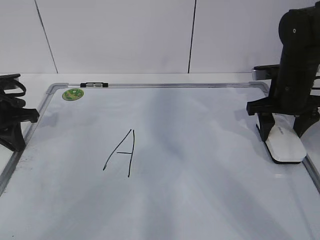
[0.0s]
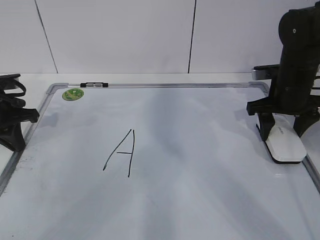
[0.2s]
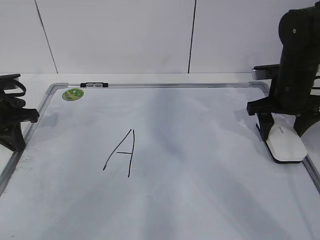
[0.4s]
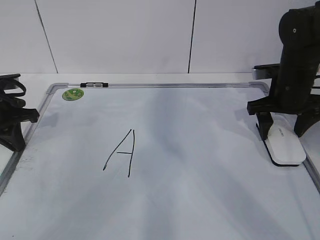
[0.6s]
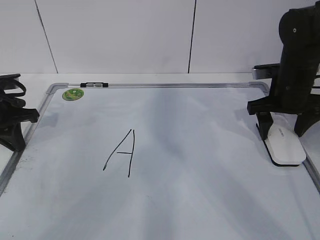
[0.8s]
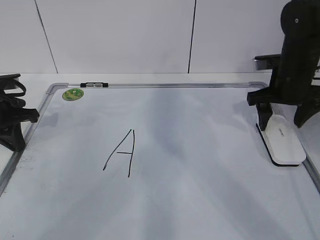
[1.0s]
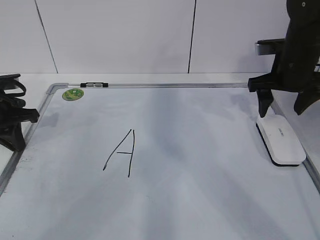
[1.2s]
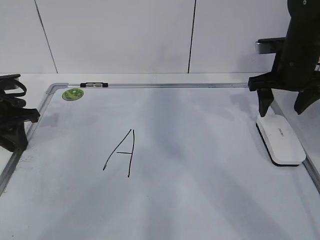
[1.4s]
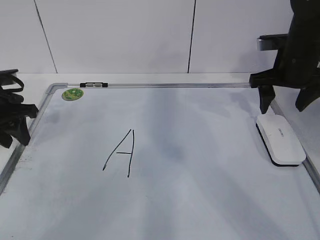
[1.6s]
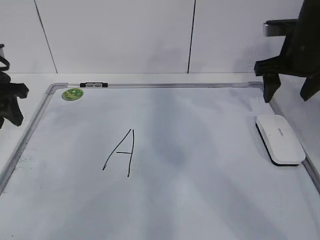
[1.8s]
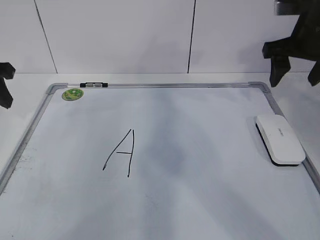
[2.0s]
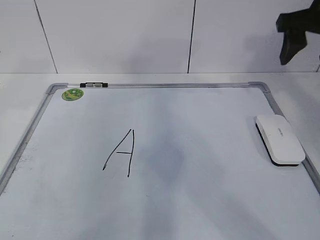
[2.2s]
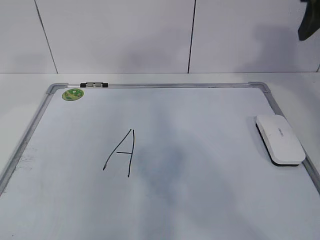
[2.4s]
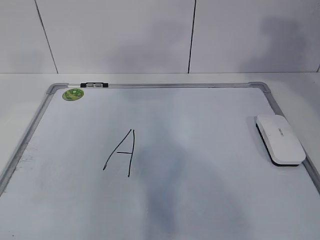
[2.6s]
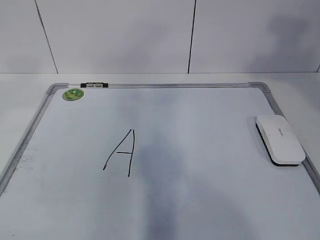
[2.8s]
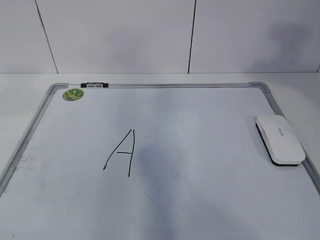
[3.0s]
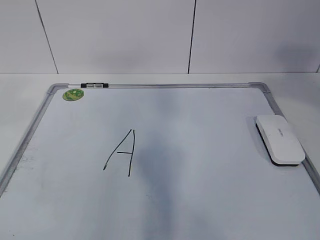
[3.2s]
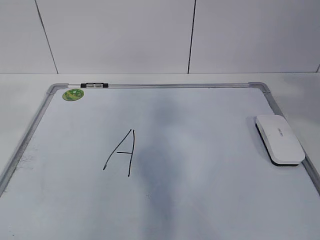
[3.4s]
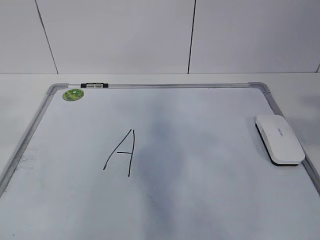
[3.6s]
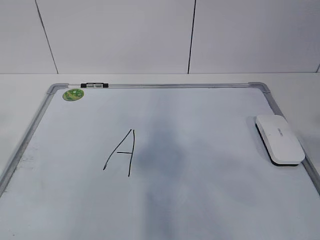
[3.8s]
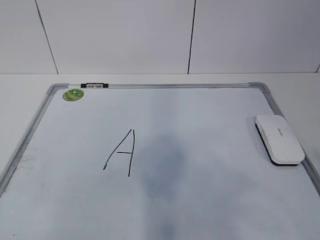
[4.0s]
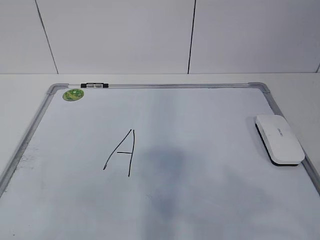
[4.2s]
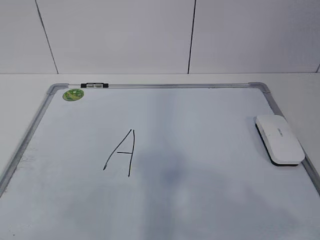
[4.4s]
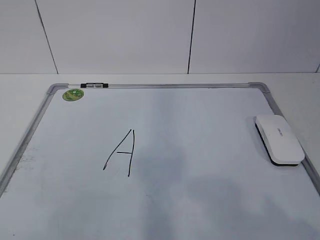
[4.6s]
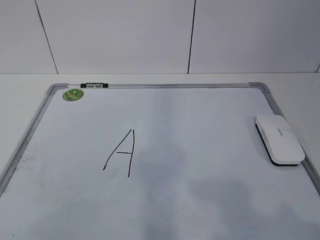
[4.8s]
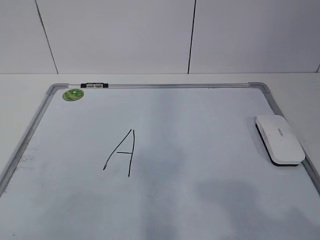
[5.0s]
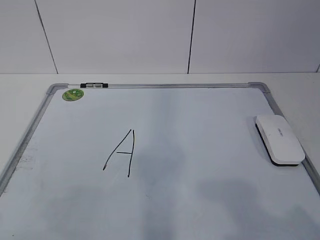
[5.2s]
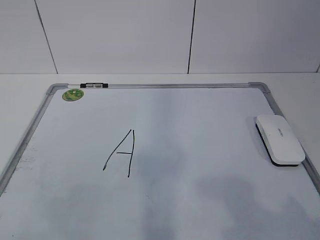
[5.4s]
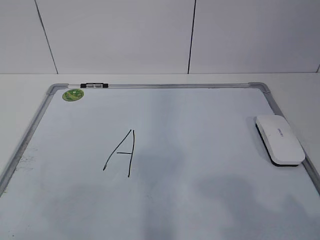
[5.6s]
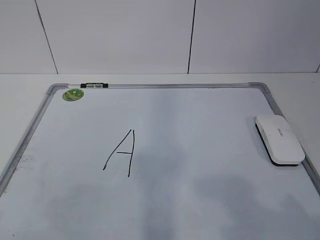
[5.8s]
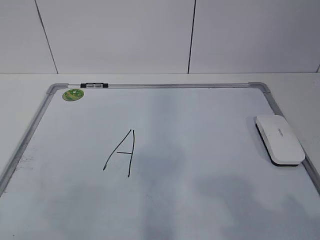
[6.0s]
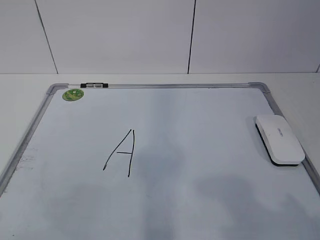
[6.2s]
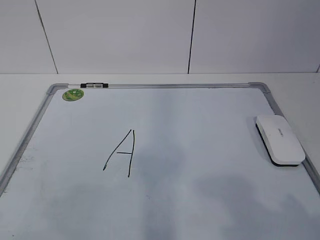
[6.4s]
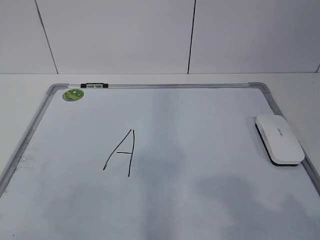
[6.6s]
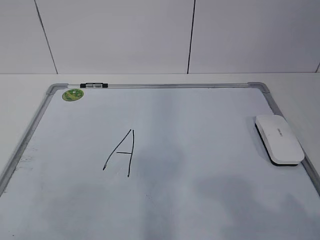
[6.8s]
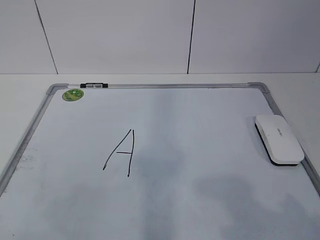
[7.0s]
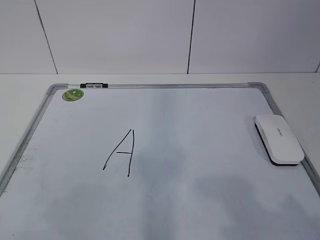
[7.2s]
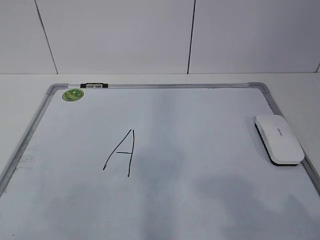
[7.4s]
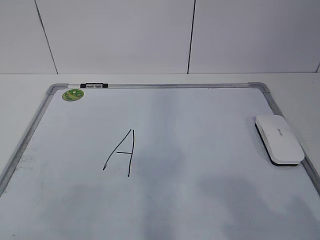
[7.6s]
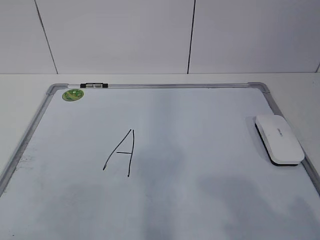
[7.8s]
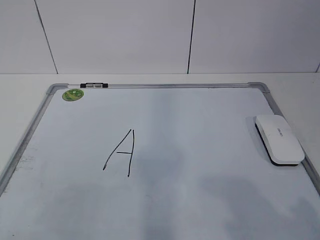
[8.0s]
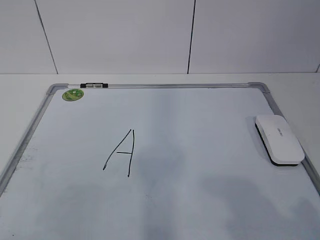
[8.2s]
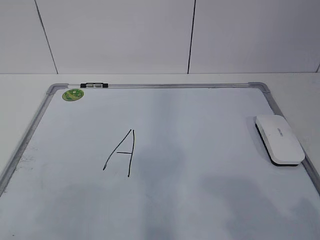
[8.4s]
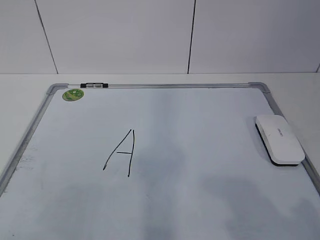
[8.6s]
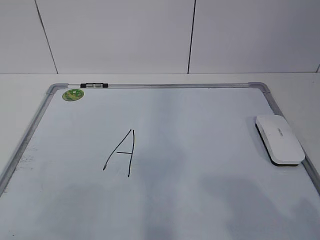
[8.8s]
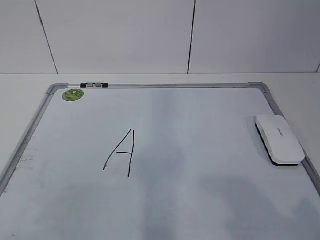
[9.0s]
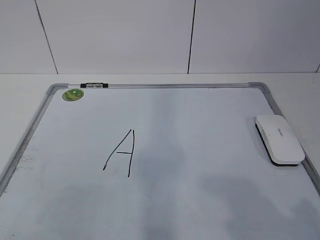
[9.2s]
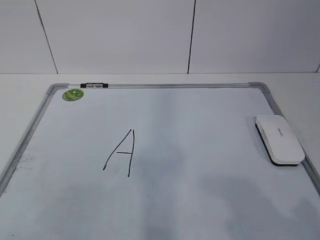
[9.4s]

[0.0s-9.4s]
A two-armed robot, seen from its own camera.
Task of the whole recording: pick up the eraser on the blackboard and erase the letter "a".
0.0s to 1.6s: The right gripper opens; the left gripper opens.
1.6s to 3.2s: The right gripper goes about 40 cm backward and upward, and closes its fingers; the left gripper heads upward and backward, covering roughly 40 cm.
3.2s to 4.8s: The right gripper heads downward and backward, covering about 25 cm.
7.8s to 9.4s: Neither gripper changes place.

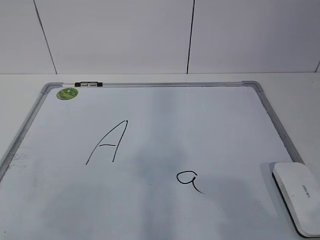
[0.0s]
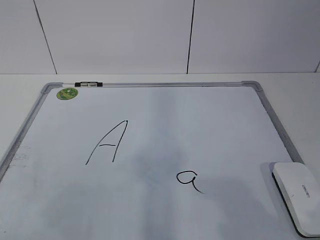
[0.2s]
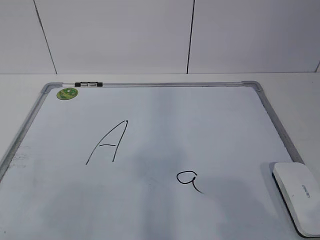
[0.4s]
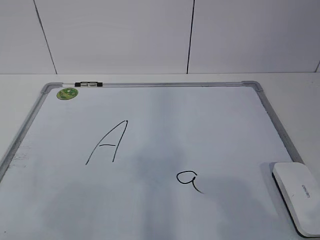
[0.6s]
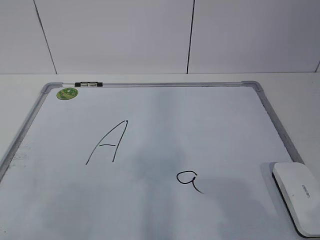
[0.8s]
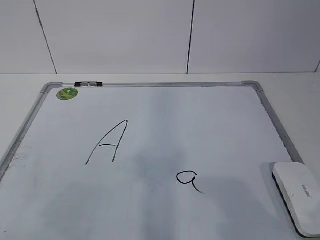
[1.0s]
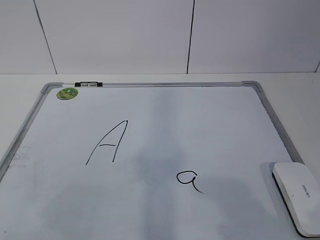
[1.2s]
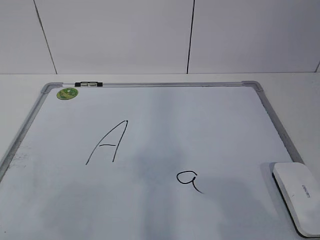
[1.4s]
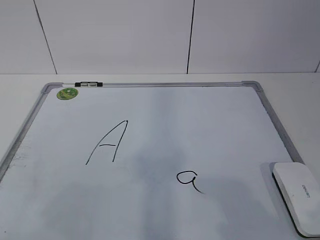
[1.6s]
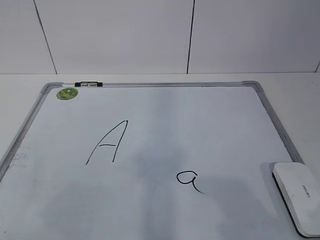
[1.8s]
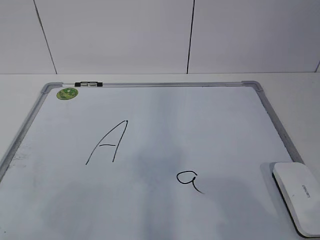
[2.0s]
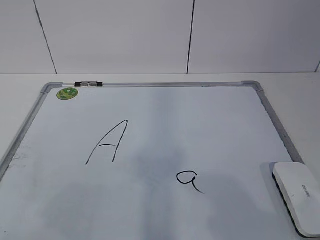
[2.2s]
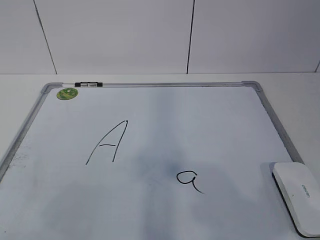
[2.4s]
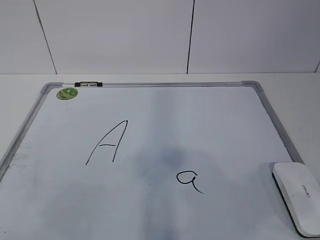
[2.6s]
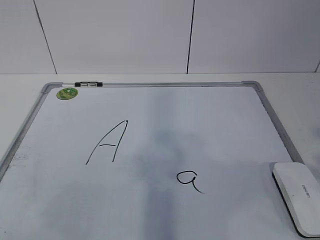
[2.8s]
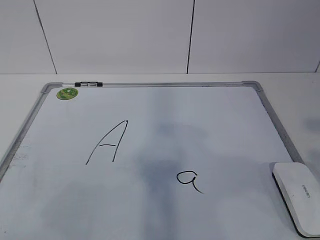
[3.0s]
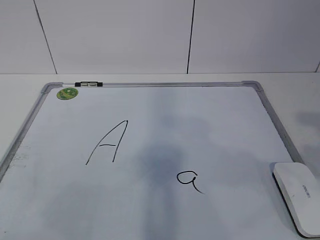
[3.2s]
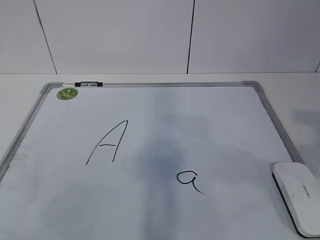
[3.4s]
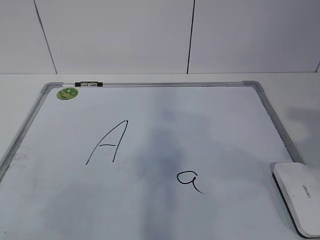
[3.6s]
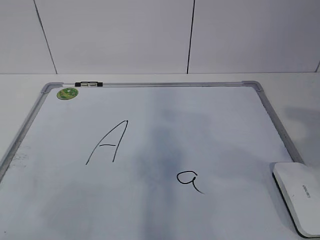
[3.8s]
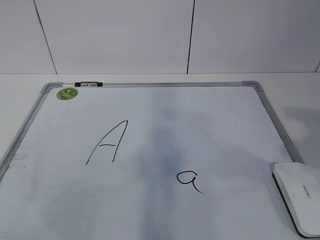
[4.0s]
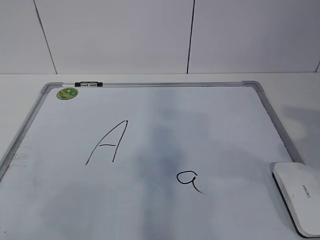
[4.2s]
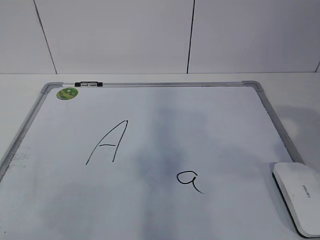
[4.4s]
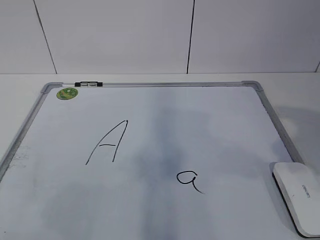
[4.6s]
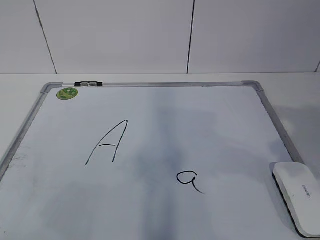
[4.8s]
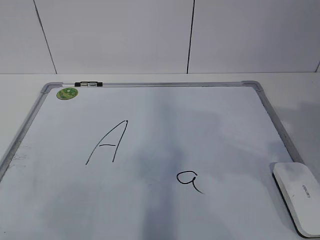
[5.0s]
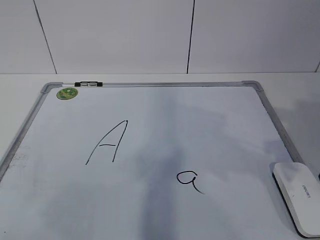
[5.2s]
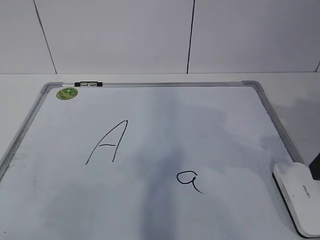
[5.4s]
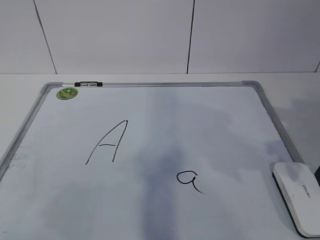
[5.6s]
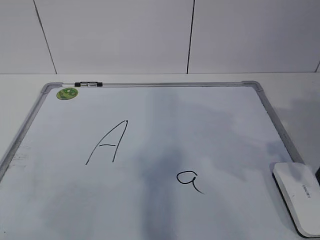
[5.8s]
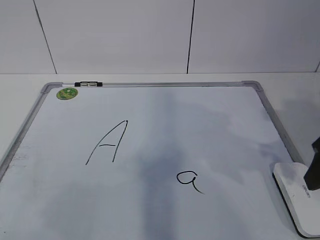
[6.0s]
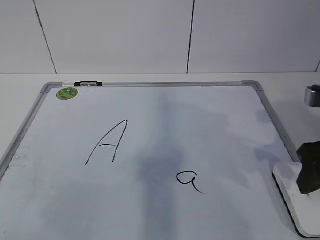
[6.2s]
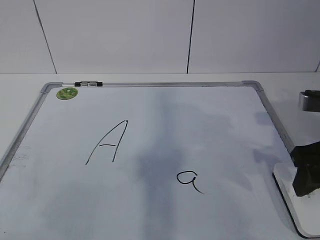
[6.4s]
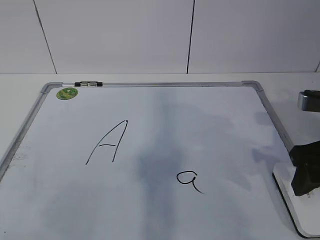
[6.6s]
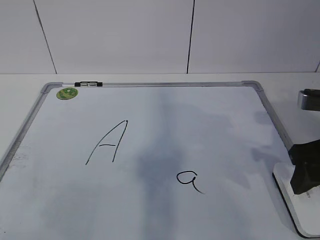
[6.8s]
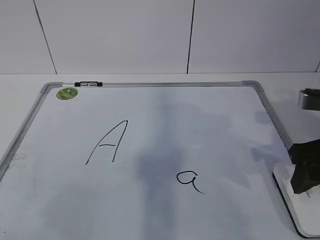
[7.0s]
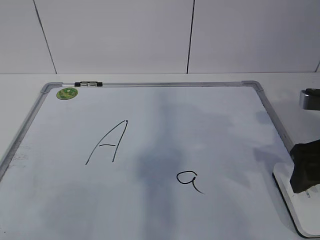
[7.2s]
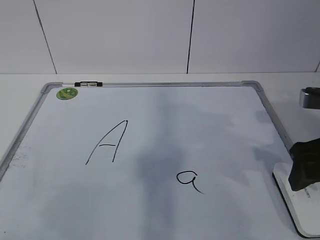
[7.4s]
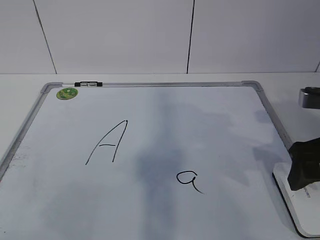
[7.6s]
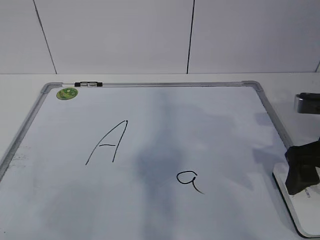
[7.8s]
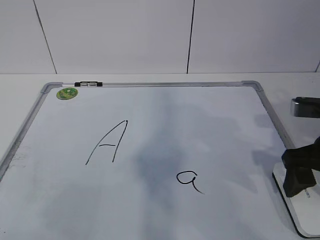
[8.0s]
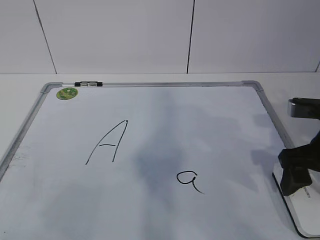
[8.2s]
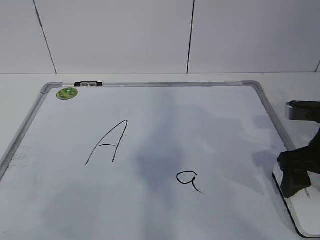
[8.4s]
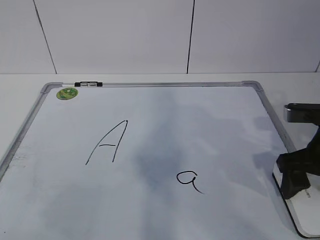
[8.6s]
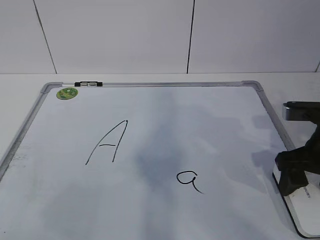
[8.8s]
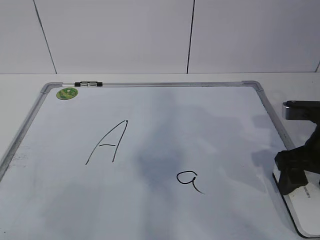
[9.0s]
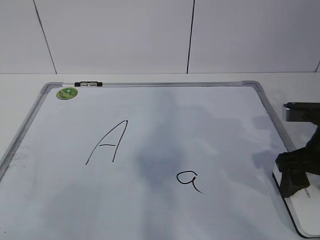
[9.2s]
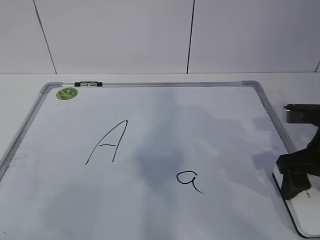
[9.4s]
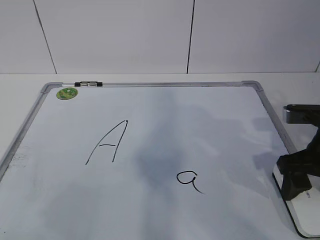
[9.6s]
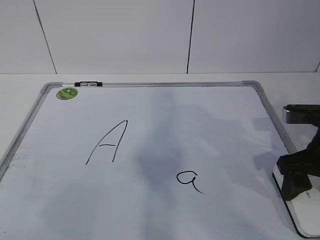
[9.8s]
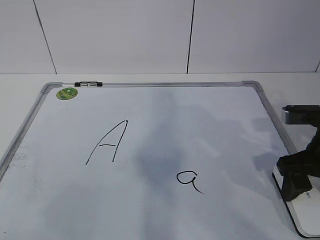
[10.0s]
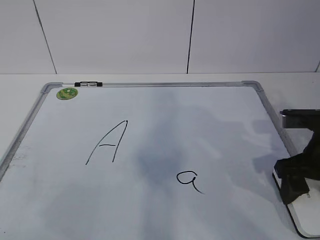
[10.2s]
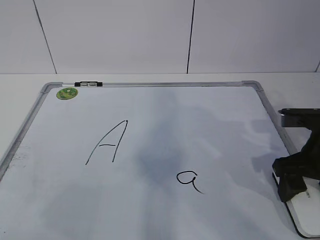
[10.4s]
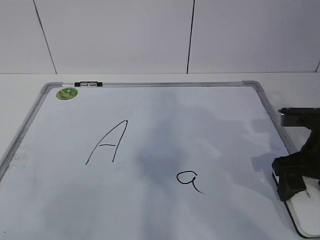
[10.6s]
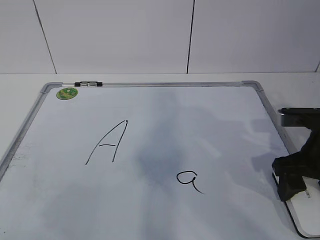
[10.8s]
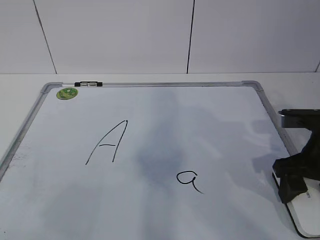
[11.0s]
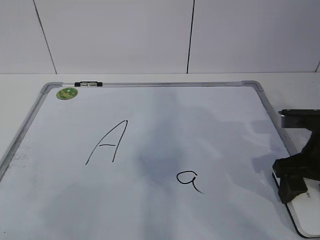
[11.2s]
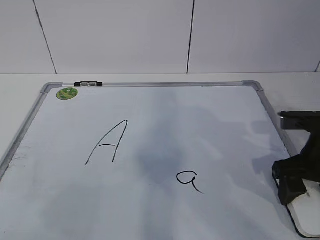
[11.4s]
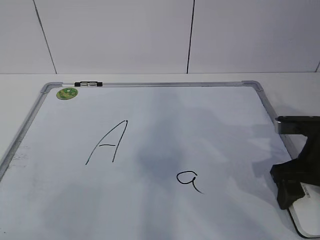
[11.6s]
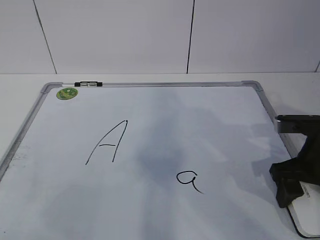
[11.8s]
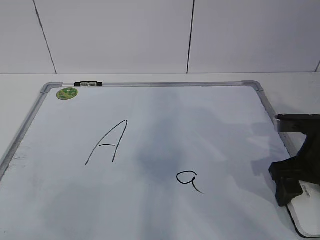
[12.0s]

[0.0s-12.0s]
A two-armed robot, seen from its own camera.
Task of the whole recording: pick up the eraser on the blackboard and erase the letter "a".
Step, 0.0s to 10.6s: Grab the eraser with your right hand.
4.4s to 6.0s: The right gripper travels forward and downward by roughly 10 cm.
6.0s to 7.6s: The right gripper opens up.
7.6s to 9.0s: The grippers make only small movements.
9.0s to 10.4s: Both grippers stay about where they are.
10.4s to 12.0s: Neither gripper changes place.

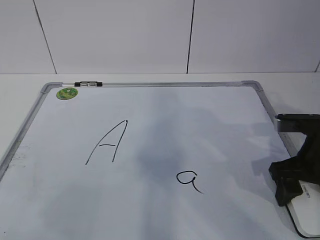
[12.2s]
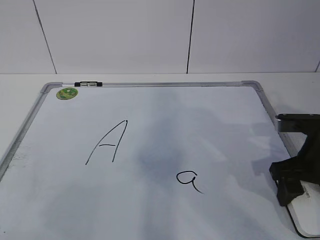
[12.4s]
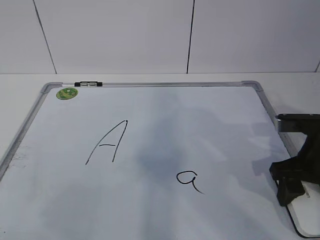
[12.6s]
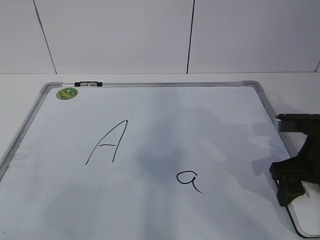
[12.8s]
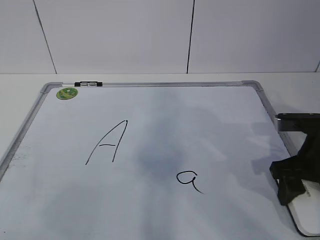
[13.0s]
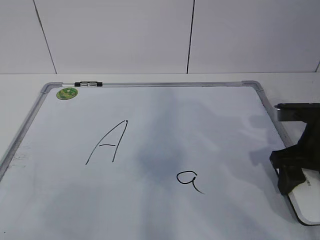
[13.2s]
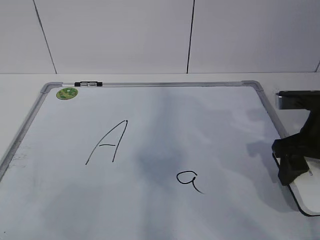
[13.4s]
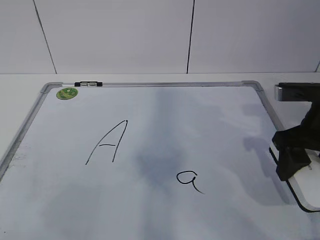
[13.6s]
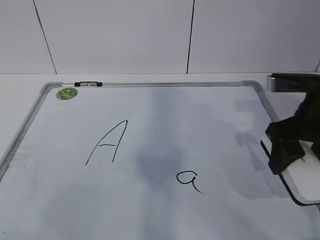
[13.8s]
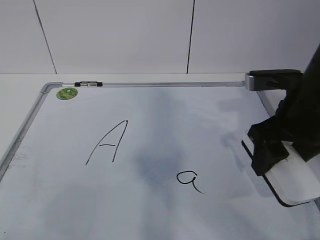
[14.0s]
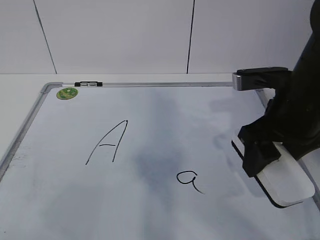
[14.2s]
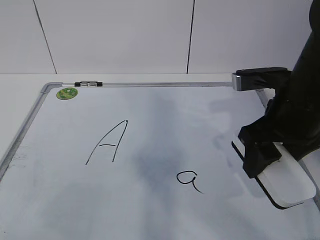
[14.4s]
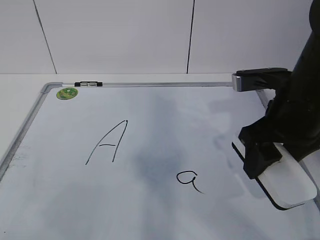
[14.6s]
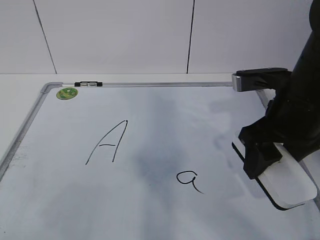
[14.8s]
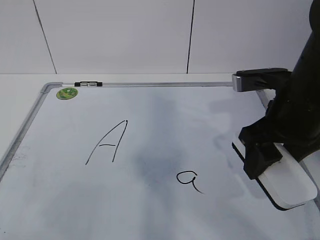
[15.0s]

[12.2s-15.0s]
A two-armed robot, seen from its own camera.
Task of the whole recording: pick up the eraser on the blackboard and erase the letter "a".
12.2s to 13.6s: The right gripper heads upward, covering approximately 5 cm, and closes its fingers.
13.6s to 15.0s: The right gripper moves to the left, about 5 cm.
